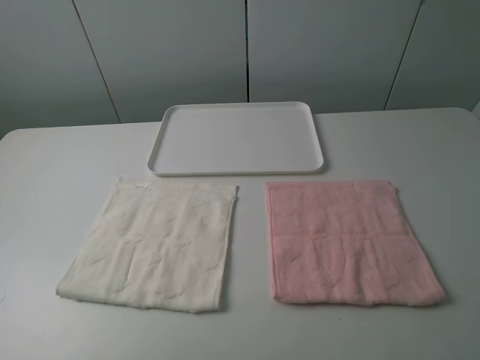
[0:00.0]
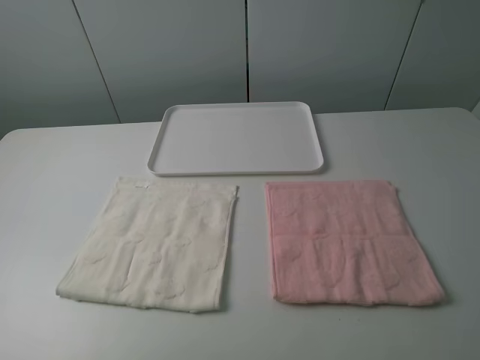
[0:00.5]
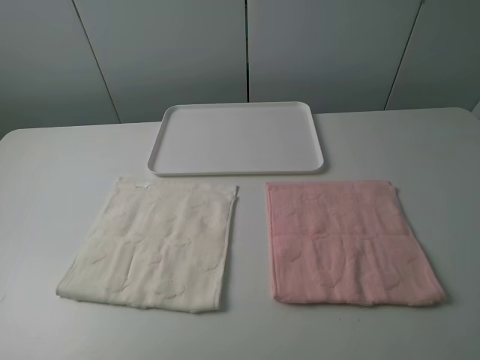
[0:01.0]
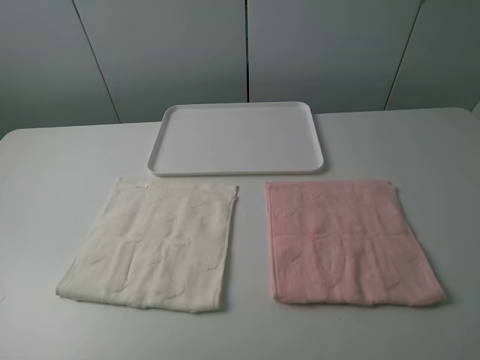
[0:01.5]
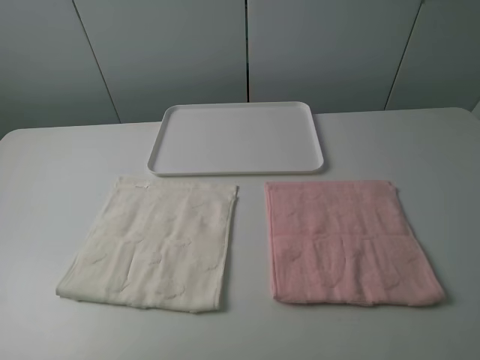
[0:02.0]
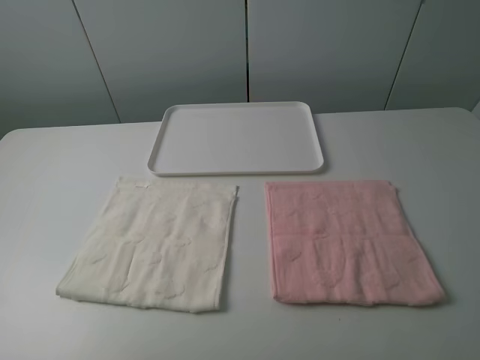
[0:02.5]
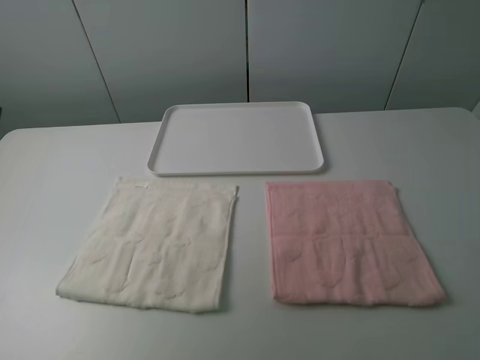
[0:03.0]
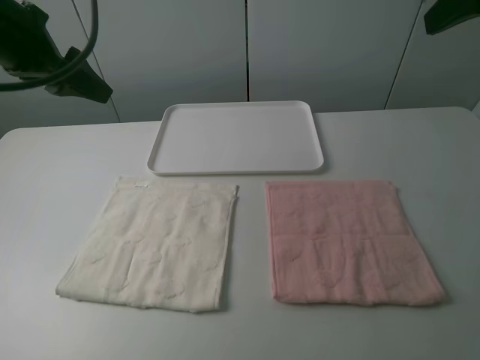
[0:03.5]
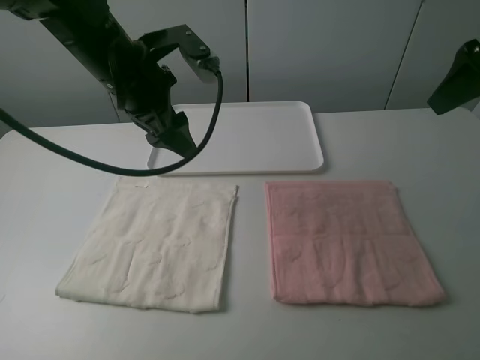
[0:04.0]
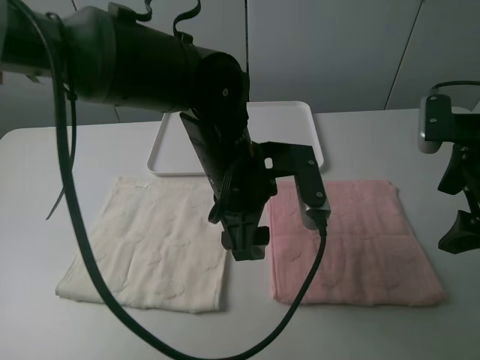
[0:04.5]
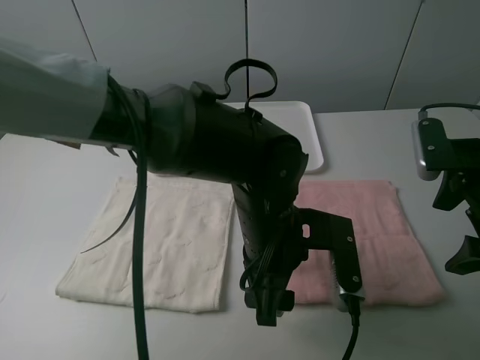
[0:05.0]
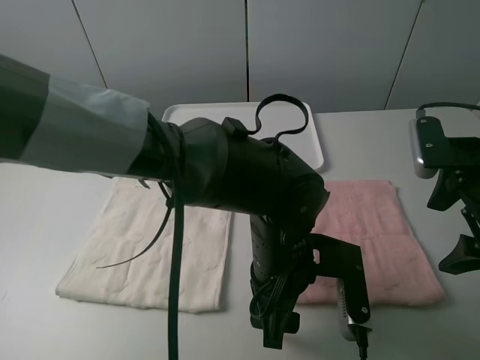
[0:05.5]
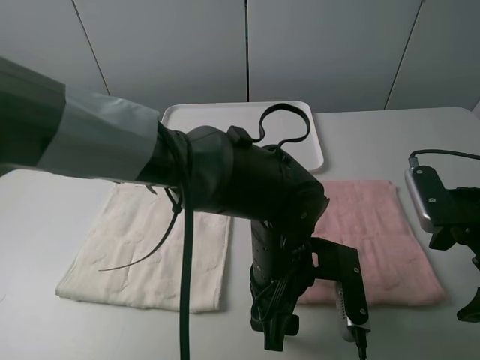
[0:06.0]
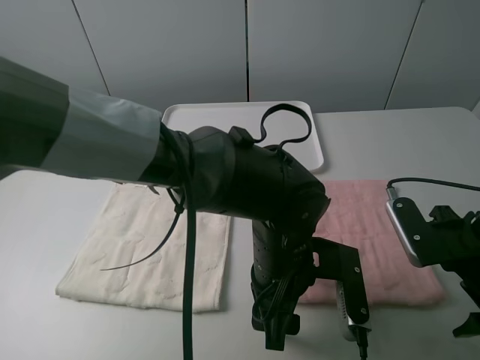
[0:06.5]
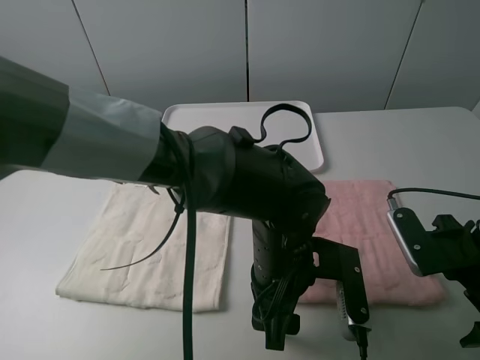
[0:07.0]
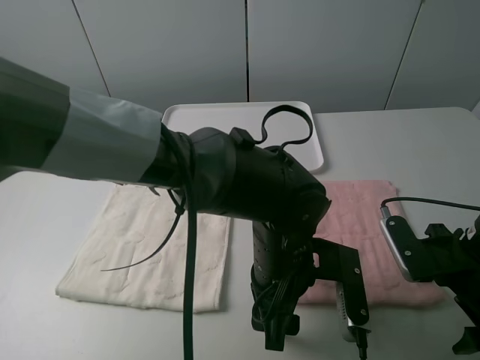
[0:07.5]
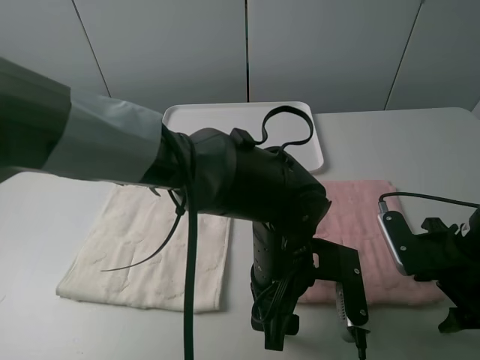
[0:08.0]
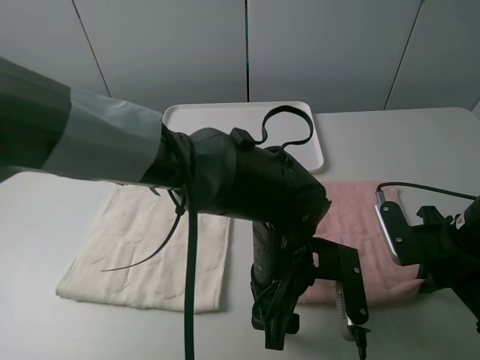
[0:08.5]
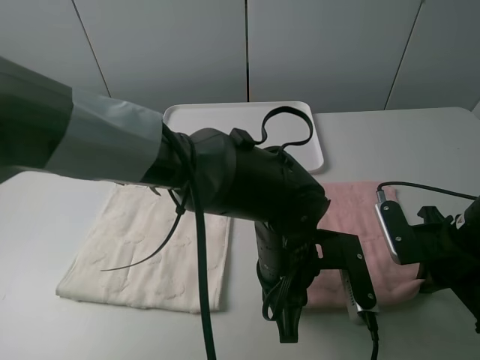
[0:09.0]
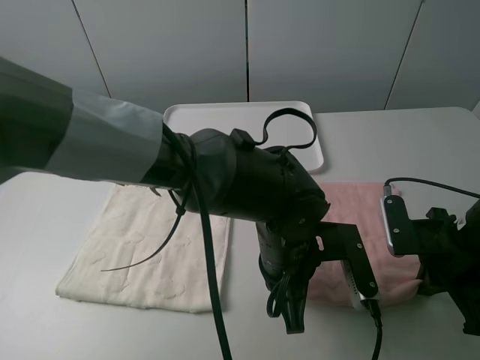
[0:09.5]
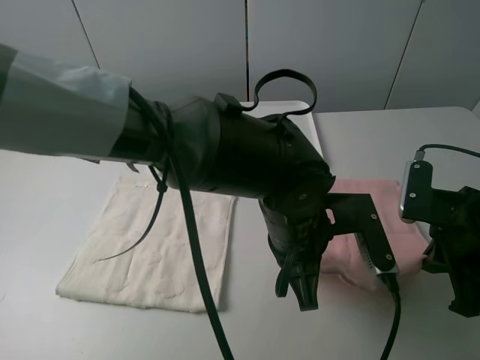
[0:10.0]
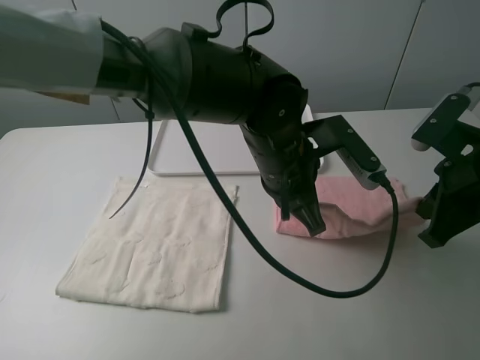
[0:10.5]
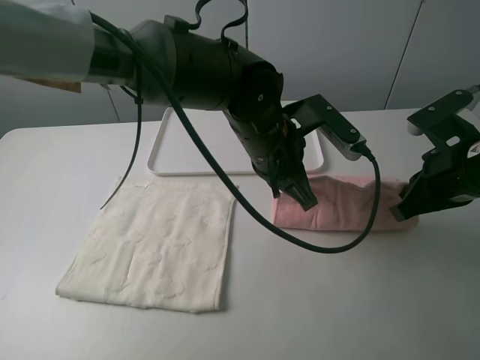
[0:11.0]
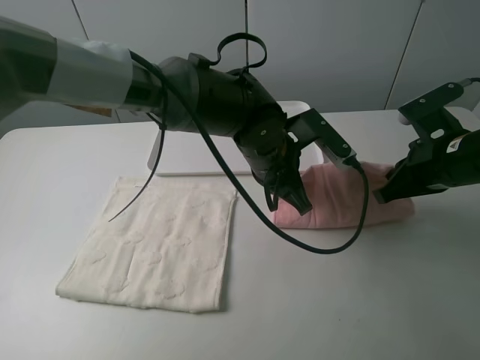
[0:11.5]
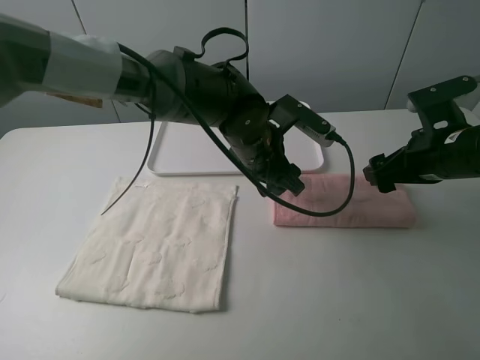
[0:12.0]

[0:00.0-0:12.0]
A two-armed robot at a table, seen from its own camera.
Task of the whole recording: fold one of the towels by two grippers and place it on the tray,then fold another towel by two grippers and place it on the folded towel.
Step, 0:00.0 to 0:09.0: Grasp the pink towel with the left gripper.
0:00.0 to 0:02.0: Neither gripper changes place.
0:02.0 to 0:04.0: The right gripper goes roughly 25 cm forward. The left gripper shifts about 40 cm forward and to the right.
0:04.0 to 0:06.0: The left gripper goes roughly 25 cm to the right, downward and backward. Meanwhile the right gripper shifts approximately 20 cm downward and backward.
0:06.0 to 0:08.0: The right gripper heads downward, covering approximately 5 cm, and closes up.
0:08.0 to 0:10.0: The left gripper closes its fingers. Meanwhile the right gripper closes its fingers.
0:10.0 to 0:12.0: Both grippers travel together forward, some 10 cm. The right gripper opens. Meanwhile the left gripper opens.

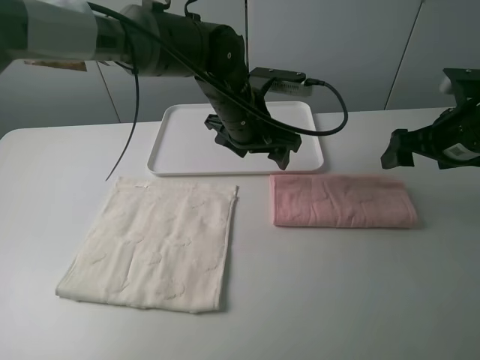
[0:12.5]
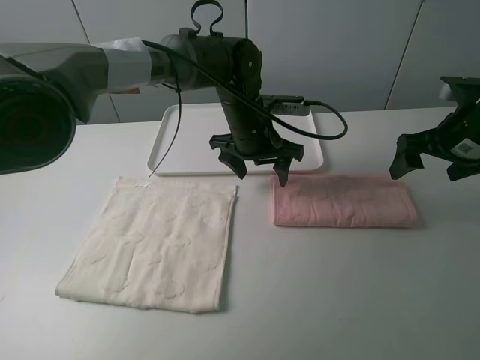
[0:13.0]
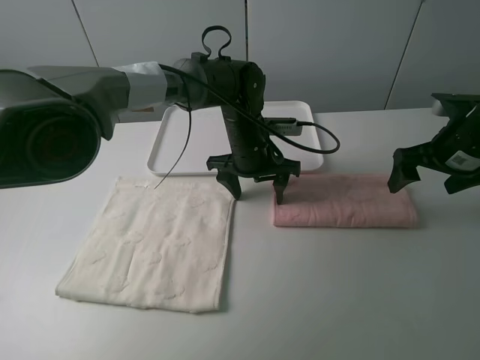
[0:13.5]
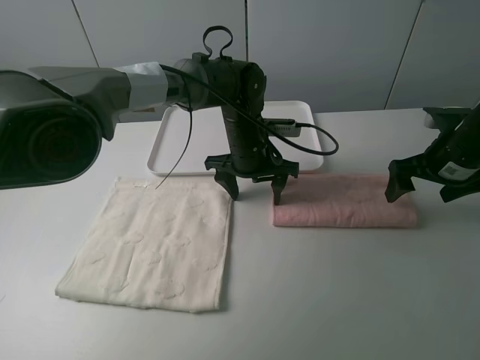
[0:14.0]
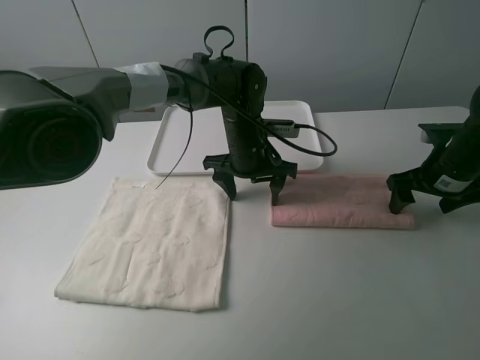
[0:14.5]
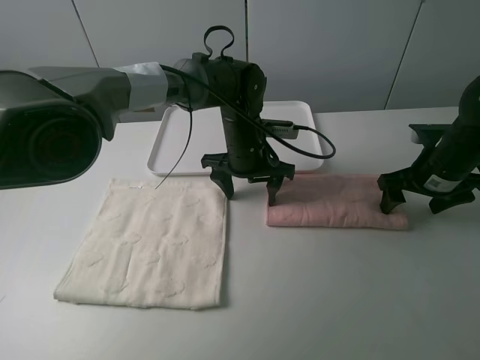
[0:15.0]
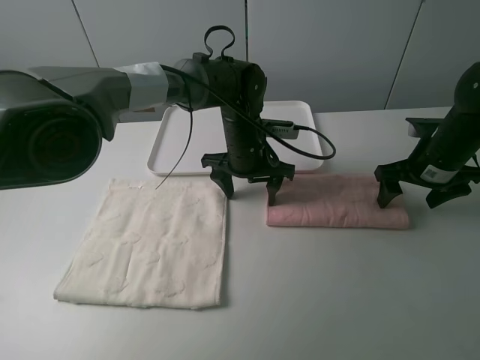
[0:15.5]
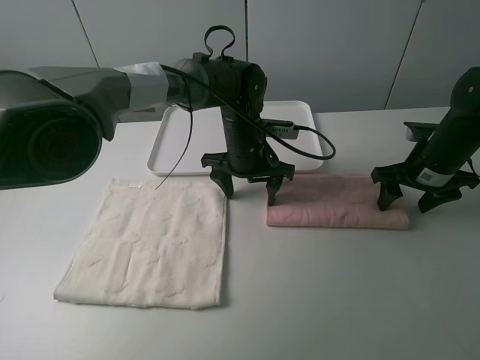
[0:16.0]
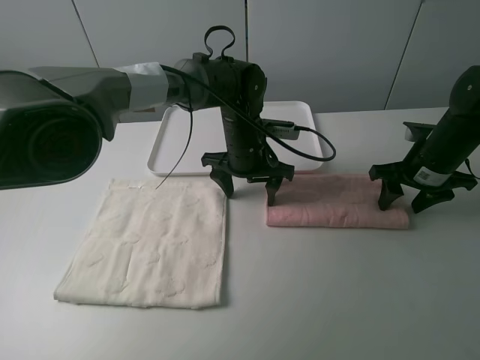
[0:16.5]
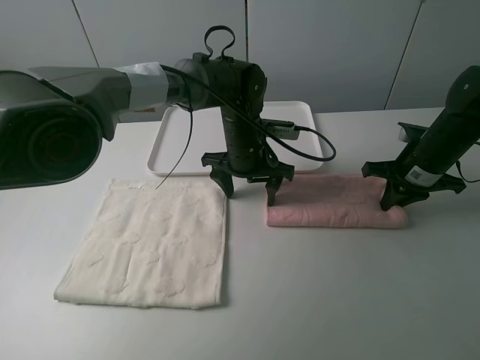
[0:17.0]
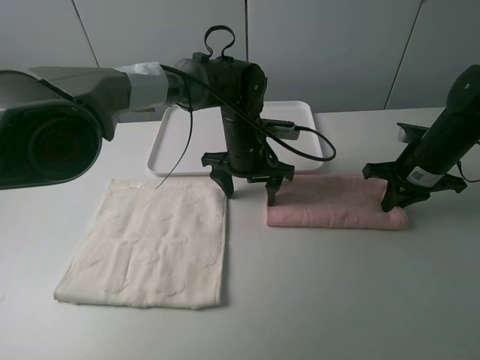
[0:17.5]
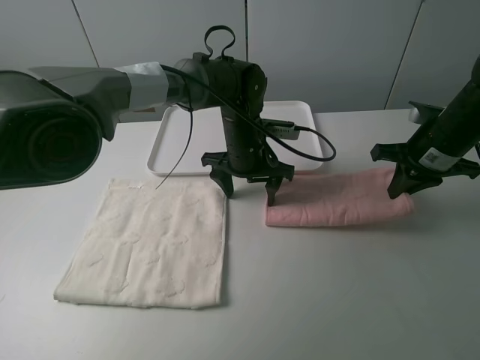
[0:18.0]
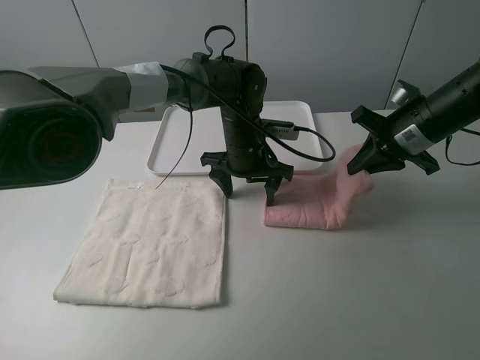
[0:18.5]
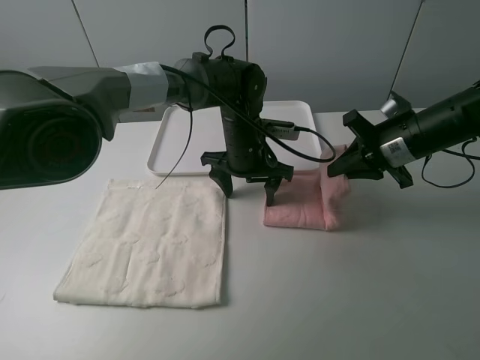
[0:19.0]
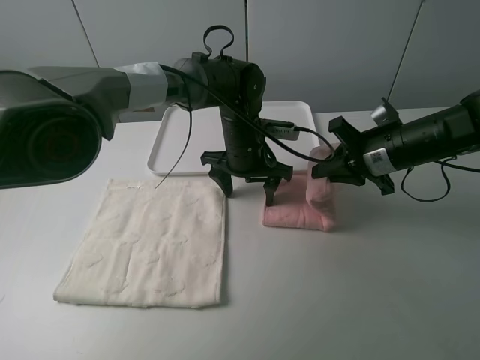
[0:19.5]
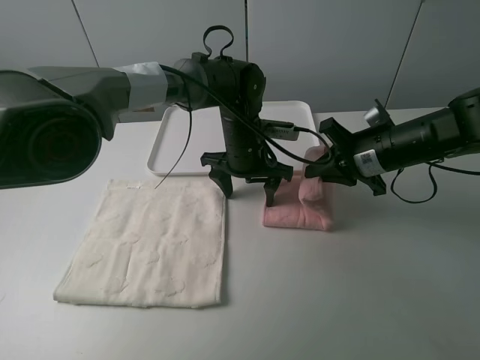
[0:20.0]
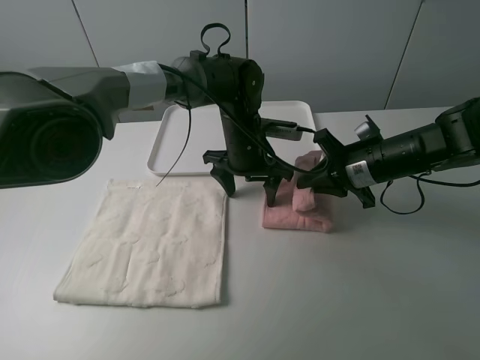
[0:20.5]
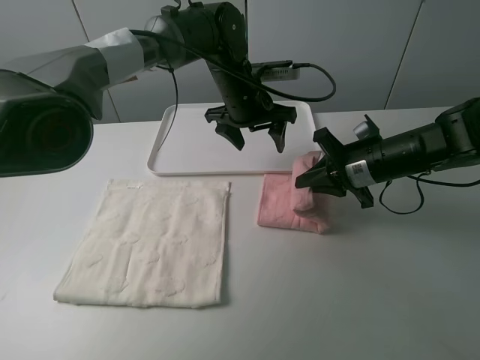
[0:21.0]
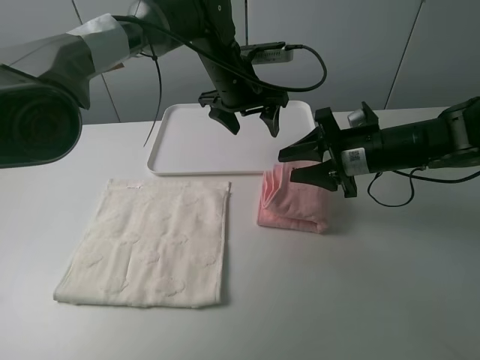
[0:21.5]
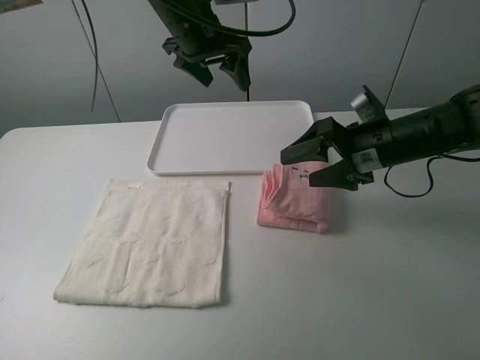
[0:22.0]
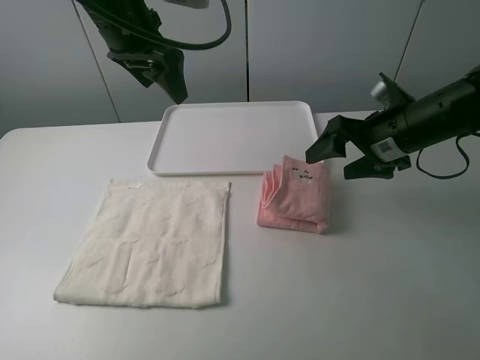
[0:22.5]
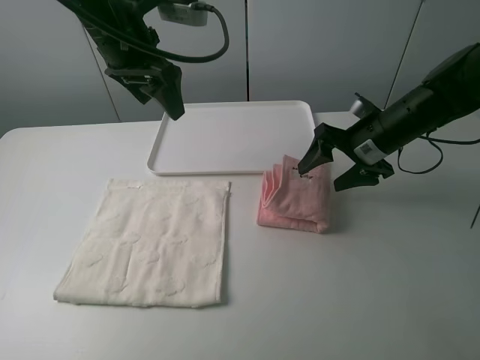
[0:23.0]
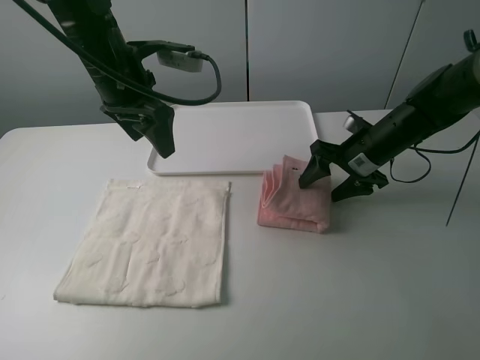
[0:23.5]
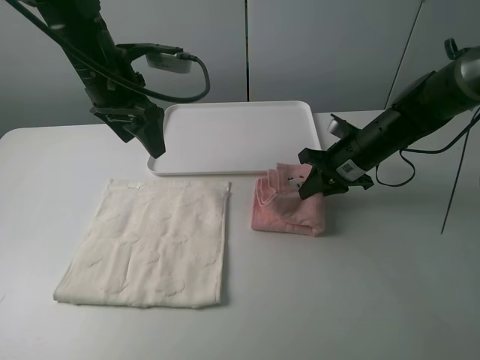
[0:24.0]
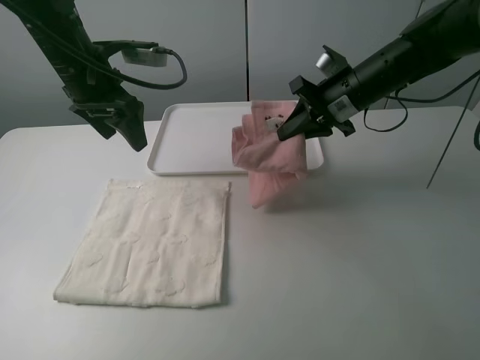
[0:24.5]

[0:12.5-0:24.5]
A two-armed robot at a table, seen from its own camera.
Task of the whole recording: fold one of the towels by two grippers and place it on the tray,then fold another towel by two grippers and place it on the folded towel.
Step, 0:12.5 to 0:14.0: Press the pink towel with the left gripper.
Step, 0:14.5 to 0:17.0: Grasp the pink towel with the right gripper.
Step, 0:17.5 to 0:21.5: Fold the pink towel from right to left with right gripper.
Step, 0:22.0 to 0:24.0: Grasp the pink towel with the right gripper.
0:12.5 to 0:14.5: The grippers both shift downward by roughly 5 cm.
0:14.5 to 0:16.5: The grippers stay close to where they were, moving slightly.
0:16.5 to 0:18.5: The right gripper moves upward, about 5 cm, and closes.
0:18.5 to 0:20.5: The right gripper travels downward by roughly 5 cm.
0:20.5 to 0:22.5: The right gripper heads upward, covering about 5 cm, and opens up. The left gripper goes some 25 cm upward and to the left.
0:22.5 to 0:24.5: The right gripper shifts approximately 10 cm forward, moves approximately 10 cm downward and comes back, and closes its fingers, while the left gripper goes roughly 10 cm to the left and downward.

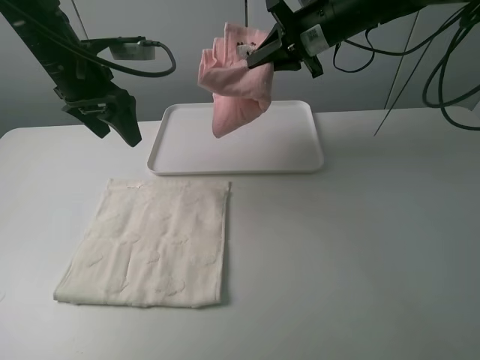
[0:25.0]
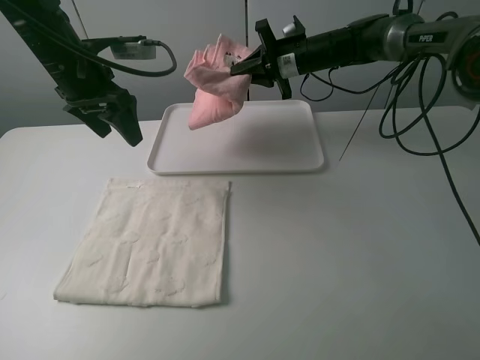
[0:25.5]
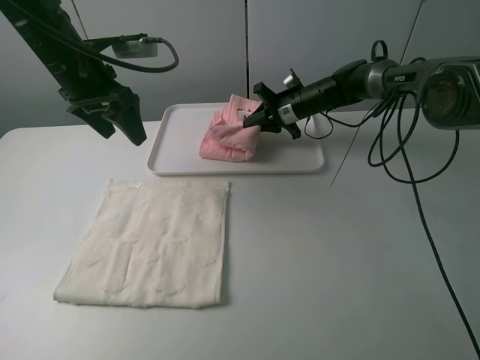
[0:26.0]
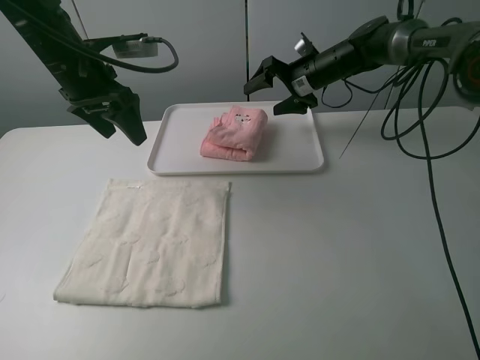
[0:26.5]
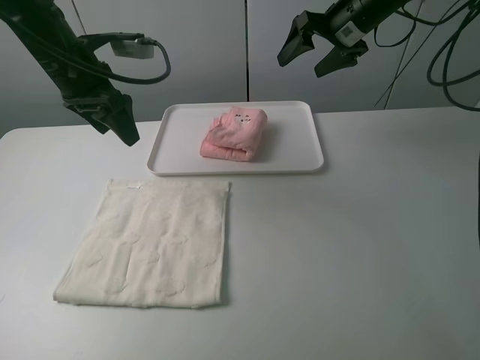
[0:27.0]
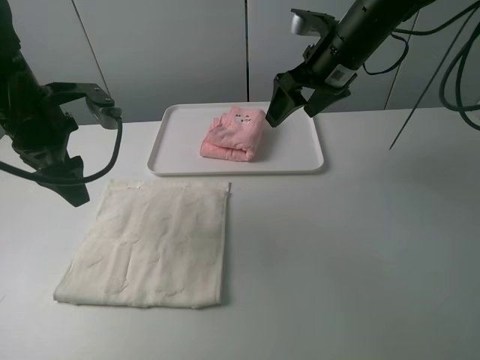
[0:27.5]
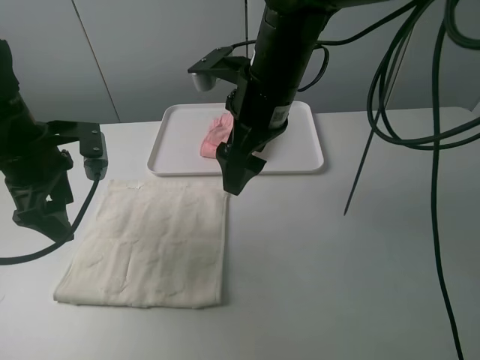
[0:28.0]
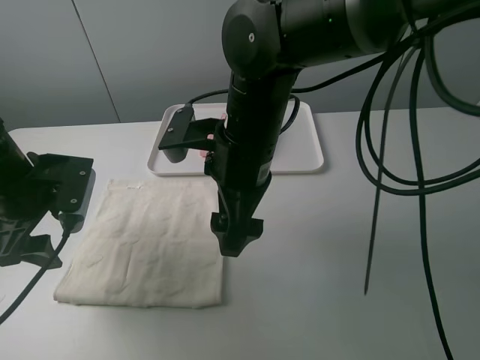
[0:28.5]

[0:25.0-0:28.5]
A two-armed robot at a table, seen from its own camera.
Task of the whole recording: fold one of the towels by two grippers and place it on the tray,then fold another towel by two grippers and place it on the folded towel.
0:25.0 to 0:27.0: The right gripper moves to the right, about 5 cm, goes downward and returns, about 15 cm each way, and opens.
0:27.0 to 0:28.5: The left gripper goes roughly 15 cm backward and downward. Meanwhile the right gripper shifts approximately 30 cm backward and to the left.
